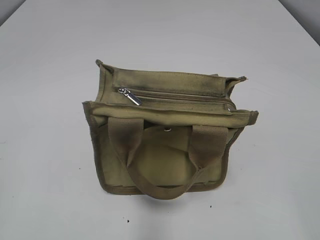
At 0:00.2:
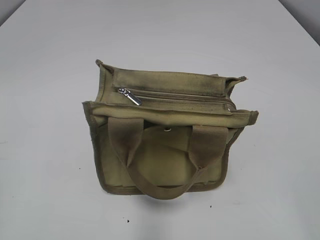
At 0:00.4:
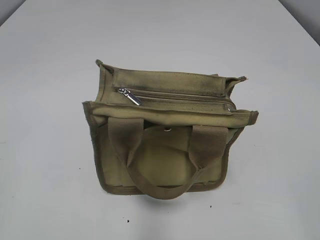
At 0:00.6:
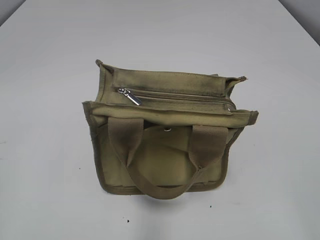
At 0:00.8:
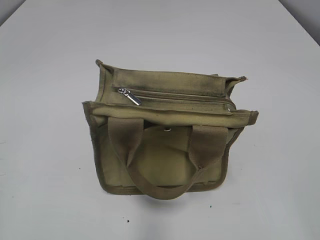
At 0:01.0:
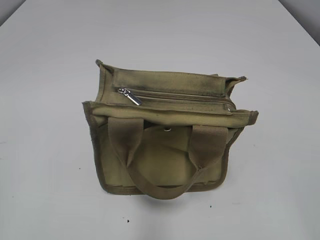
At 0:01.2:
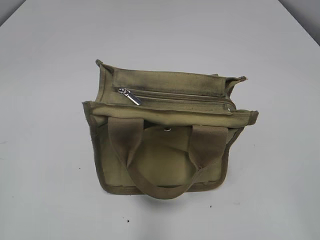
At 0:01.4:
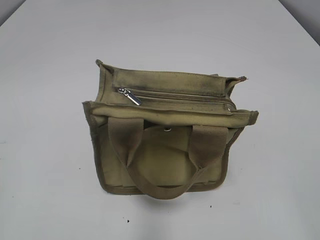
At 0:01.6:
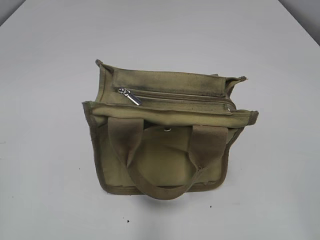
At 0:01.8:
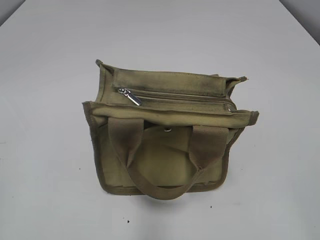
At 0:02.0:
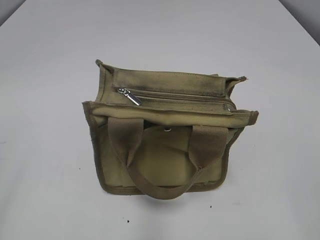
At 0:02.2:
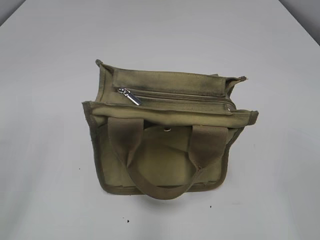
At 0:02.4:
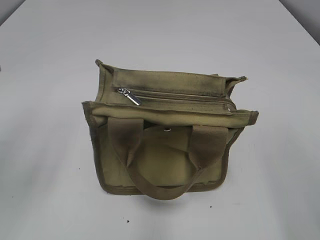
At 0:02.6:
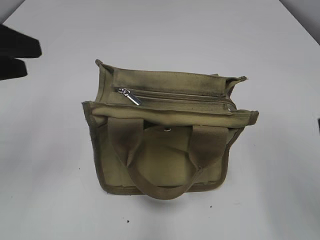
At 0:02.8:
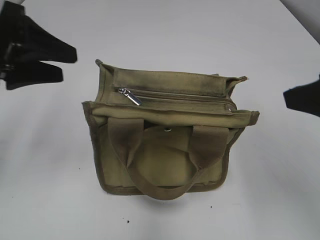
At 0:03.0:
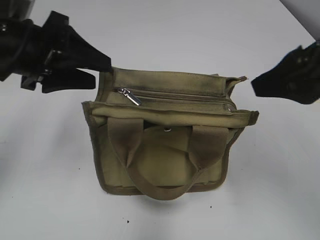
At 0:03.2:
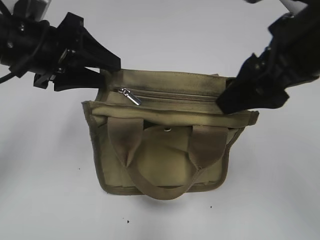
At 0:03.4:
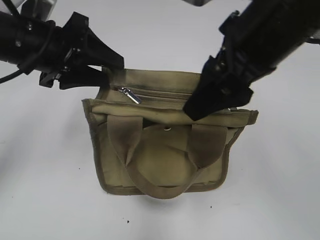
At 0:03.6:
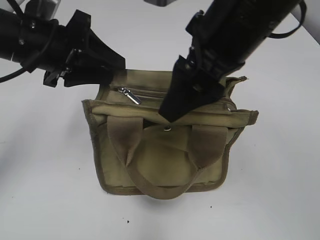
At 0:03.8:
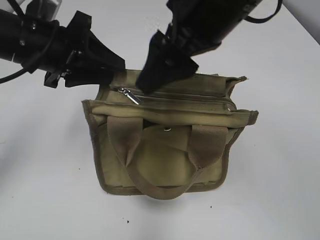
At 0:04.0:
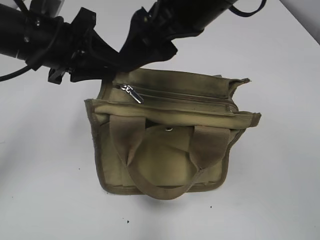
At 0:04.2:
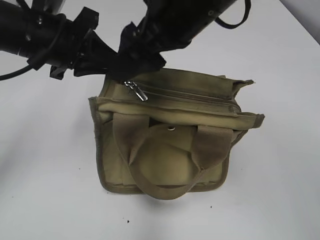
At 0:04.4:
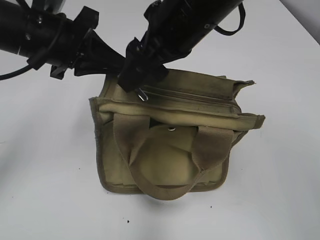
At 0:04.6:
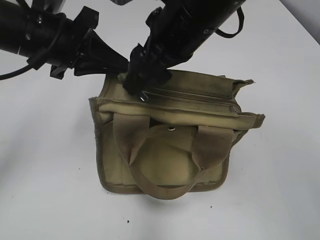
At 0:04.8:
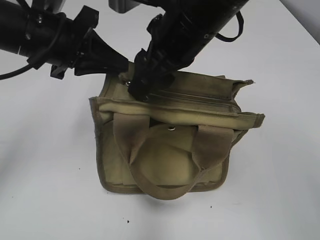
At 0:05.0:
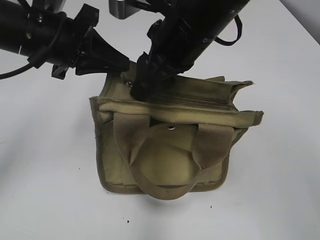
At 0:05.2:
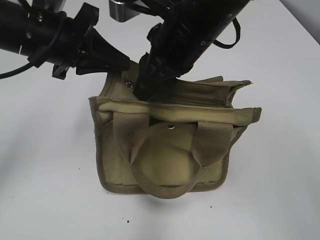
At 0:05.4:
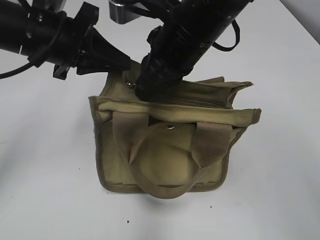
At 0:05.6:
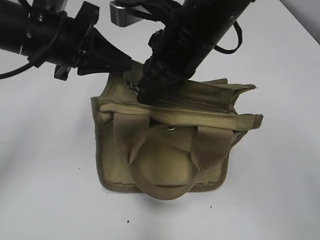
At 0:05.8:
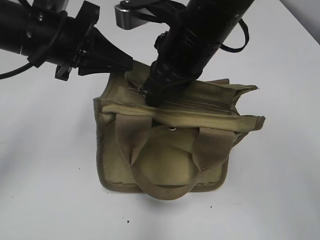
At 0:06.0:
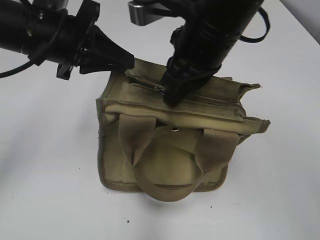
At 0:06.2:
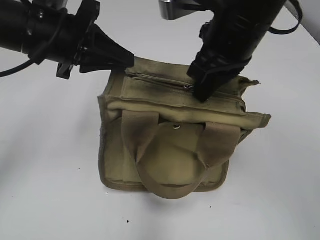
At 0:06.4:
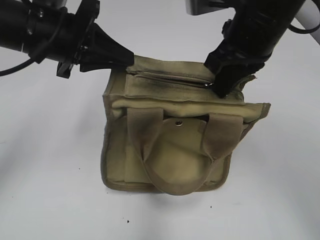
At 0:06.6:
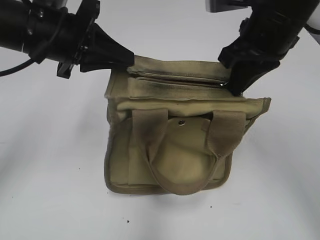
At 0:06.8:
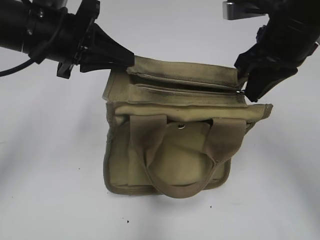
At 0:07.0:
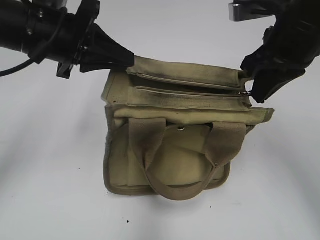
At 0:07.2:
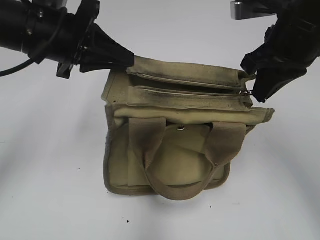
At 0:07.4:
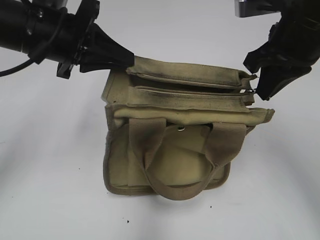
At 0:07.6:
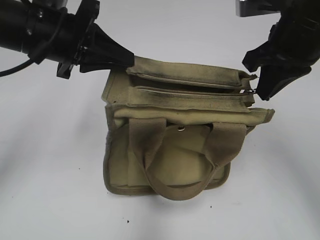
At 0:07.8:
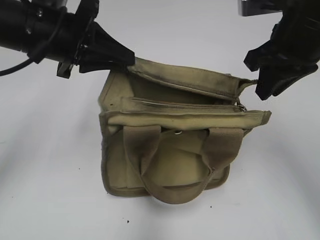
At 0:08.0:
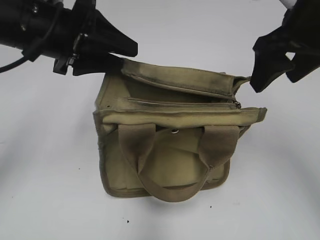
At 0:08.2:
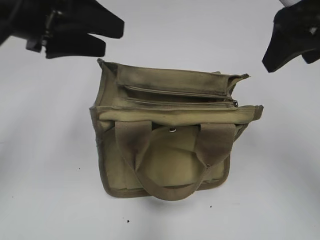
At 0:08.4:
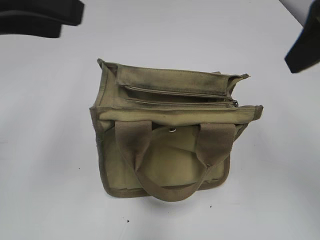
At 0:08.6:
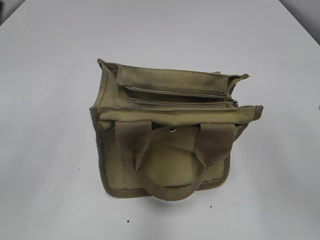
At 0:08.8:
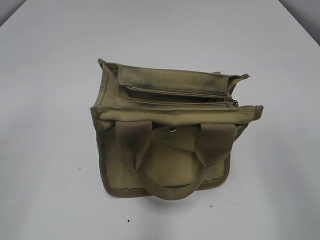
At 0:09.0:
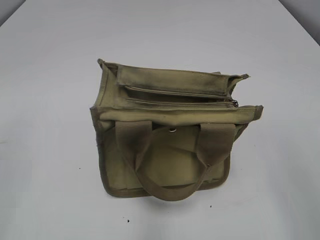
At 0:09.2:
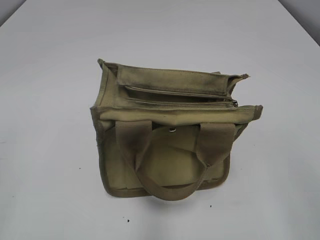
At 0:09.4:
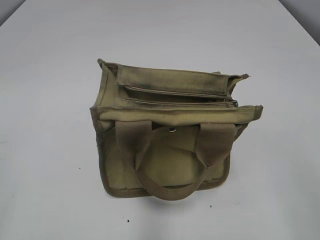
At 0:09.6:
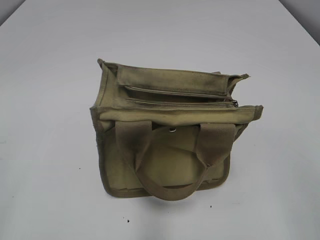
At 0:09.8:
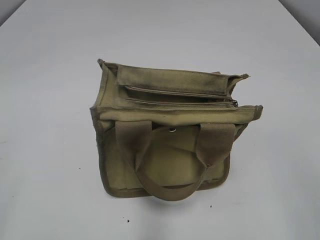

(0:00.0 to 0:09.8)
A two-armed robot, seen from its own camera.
Step, 0:00.0 - 0:07.6: Pull open the zipper with your right hand.
0:01.4 - 0:02.8: The grippers both shift forward by about 20 cm.
0:02.8 - 0:04.2: The left gripper goes approximately 5 cm to the right, and closes. The right gripper shifts approximately 20 cm to the left and forward.
0:04.2 - 0:05.6: The right gripper closes up.
0:05.6 - 0:07.0: The right gripper travels to the right by some 15 cm.
0:07.0 - 0:08.4: The left gripper goes roughly 15 cm upward and backward, and opens up; the right gripper moves backward and upward, about 15 cm, and opens its fingers.
0:08.4 - 0:09.8: The left gripper shifts some 25 cm backward, to the left and downward. Meanwhile the right gripper moves backward and downward, roughly 20 cm.

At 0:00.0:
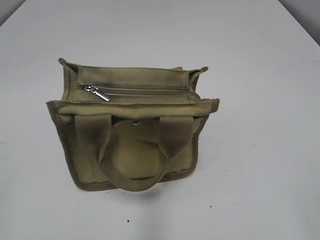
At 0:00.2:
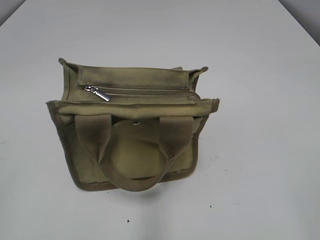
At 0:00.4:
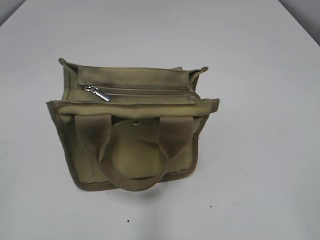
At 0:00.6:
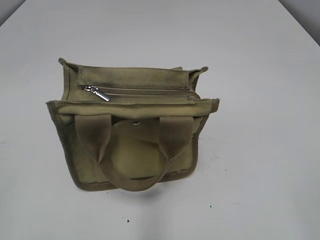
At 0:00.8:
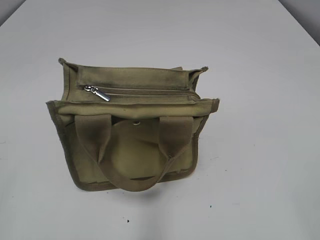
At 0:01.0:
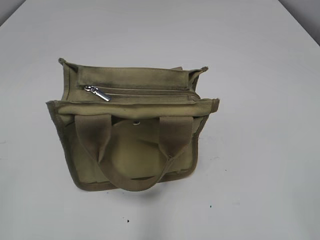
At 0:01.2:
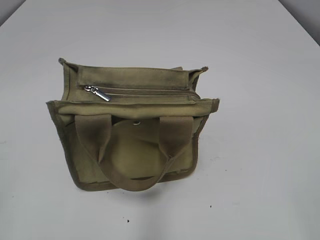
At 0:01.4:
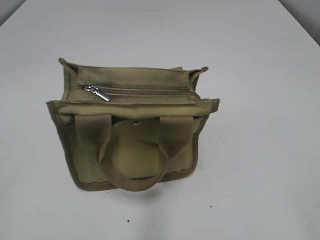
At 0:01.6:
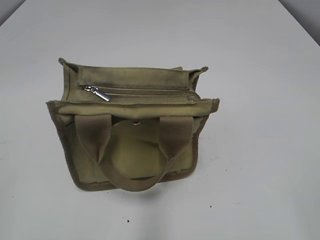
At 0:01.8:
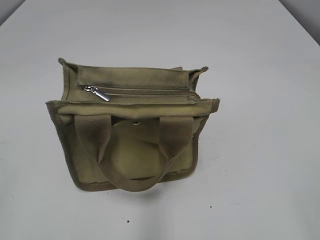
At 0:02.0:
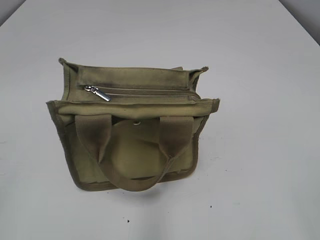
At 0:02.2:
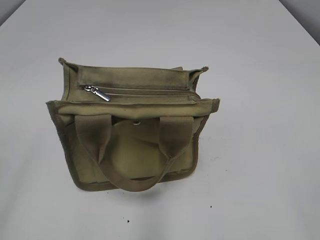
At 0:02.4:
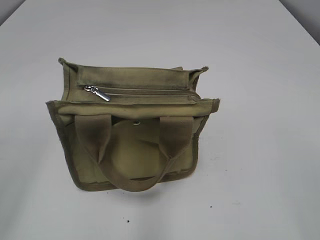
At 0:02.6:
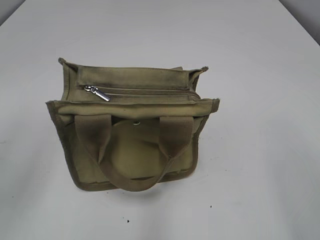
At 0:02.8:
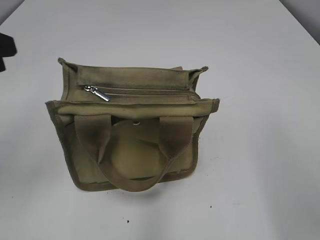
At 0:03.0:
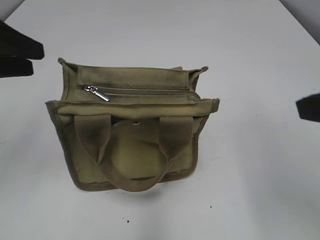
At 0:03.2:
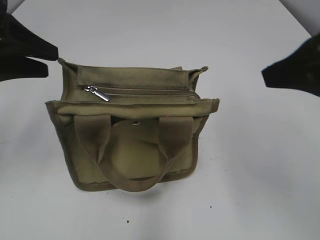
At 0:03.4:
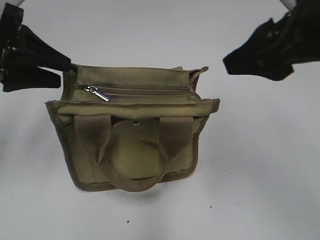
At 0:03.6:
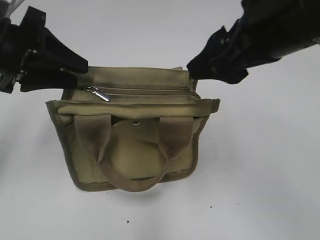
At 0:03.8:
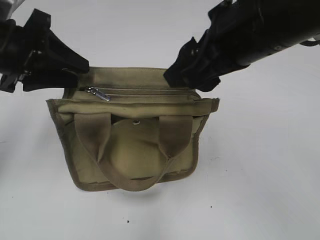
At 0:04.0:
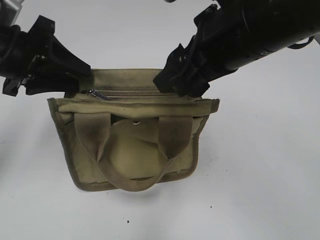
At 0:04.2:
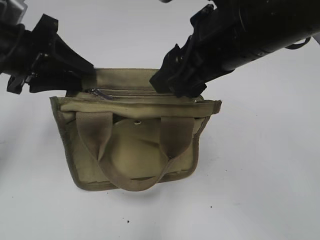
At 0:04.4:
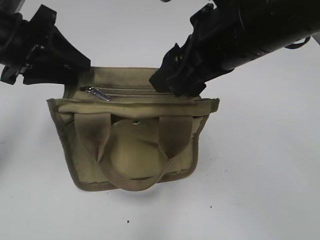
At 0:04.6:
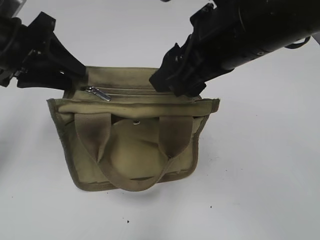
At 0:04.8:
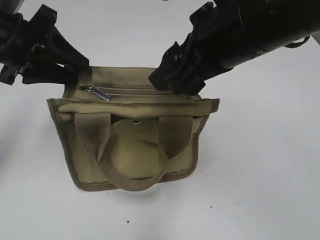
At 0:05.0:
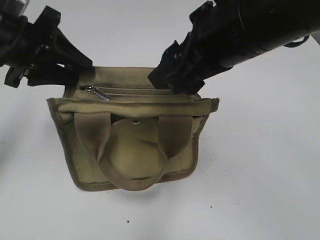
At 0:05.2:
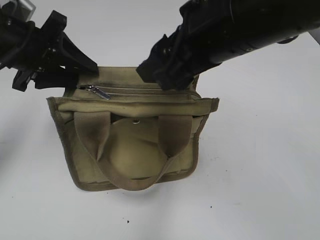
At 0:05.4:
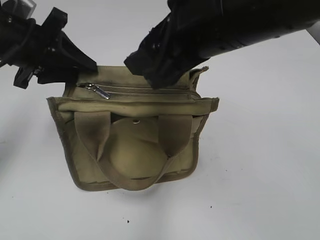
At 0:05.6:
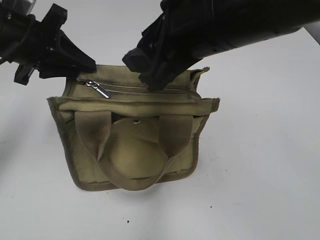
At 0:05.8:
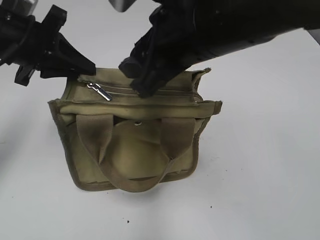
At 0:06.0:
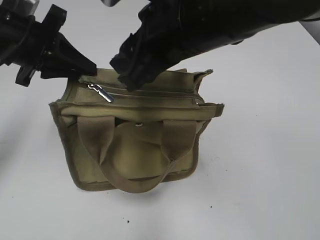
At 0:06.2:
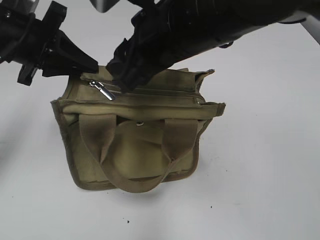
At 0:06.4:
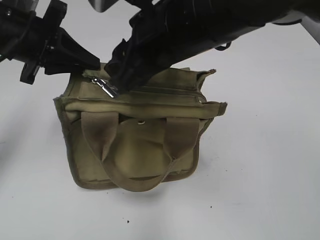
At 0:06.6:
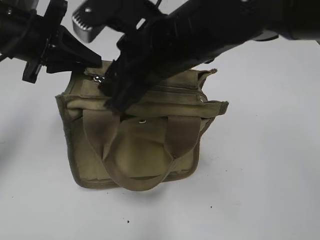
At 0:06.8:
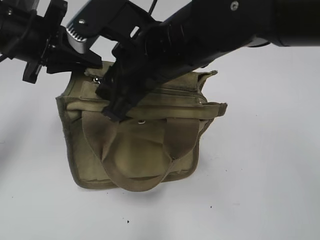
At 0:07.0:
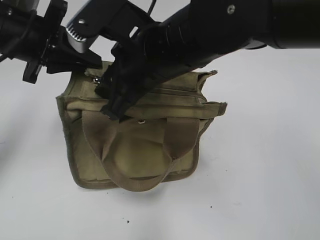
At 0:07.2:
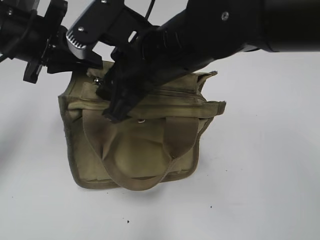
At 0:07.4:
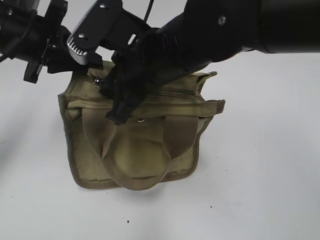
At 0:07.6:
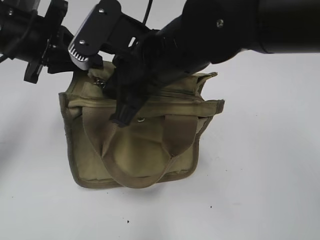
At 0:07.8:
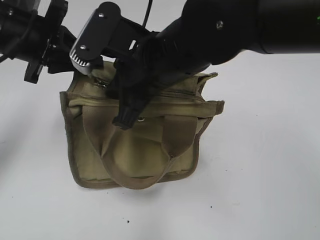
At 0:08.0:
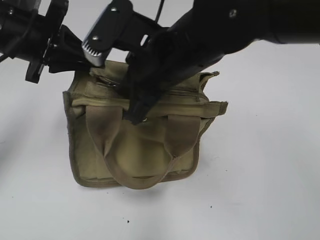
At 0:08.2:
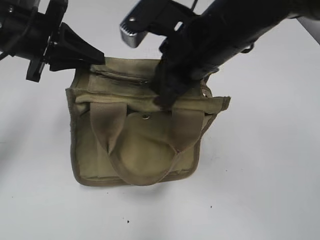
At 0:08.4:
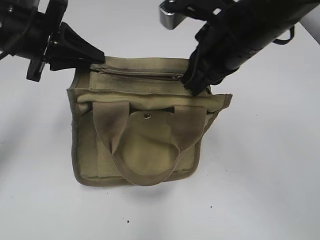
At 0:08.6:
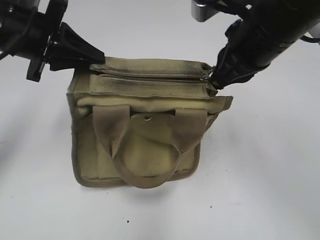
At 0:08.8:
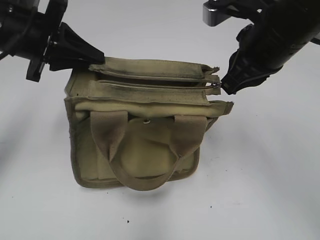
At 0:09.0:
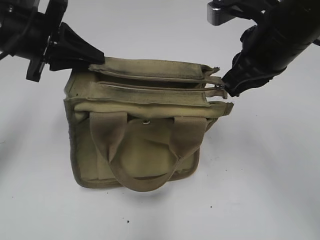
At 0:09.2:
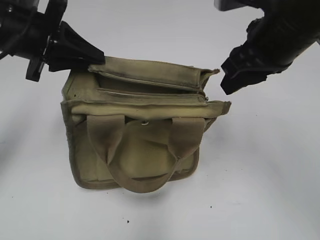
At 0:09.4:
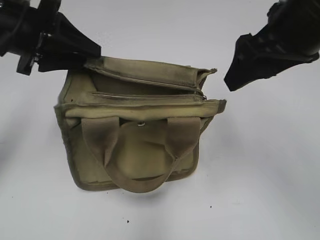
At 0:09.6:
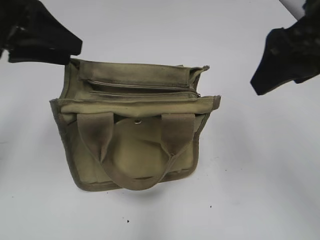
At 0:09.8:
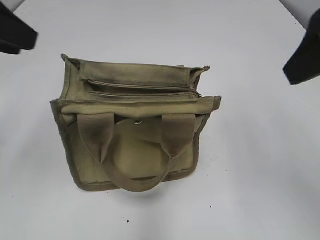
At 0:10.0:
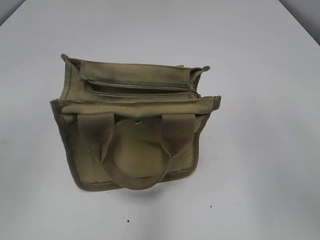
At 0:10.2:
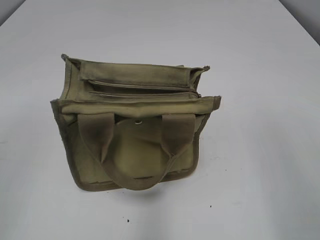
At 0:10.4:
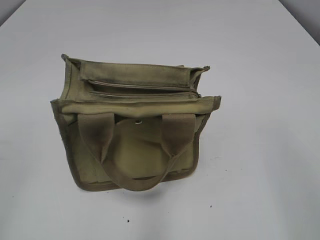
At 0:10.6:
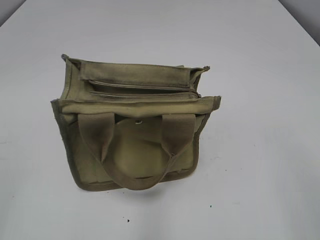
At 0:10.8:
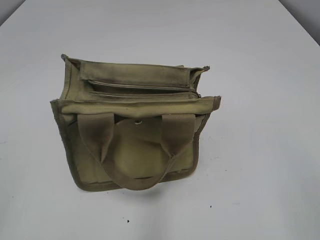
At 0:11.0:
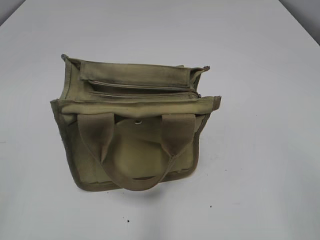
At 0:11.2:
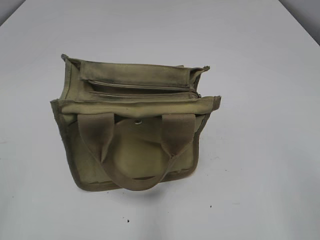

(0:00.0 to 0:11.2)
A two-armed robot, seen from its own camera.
Step, 0:00.0 - 0:09.0: Pull open the zipper with your right hand.
Step, 0:09.2 - 0:09.6: Hold the bag with your left hand.
0:01.6 - 0:03.2: The two grippers go roughly 25 cm forward.
0:03.2 - 0:04.8: The right gripper heads to the left and forward, covering roughly 15 cm; the left gripper changes place by approximately 5 cm.
0:04.8 - 0:06.4: The left gripper closes its fingers, while the right gripper shifts roughly 5 cm to the left.
0:06.4 - 0:08.0: The right gripper closes up.
0:08.0 - 0:09.6: The left gripper changes place by approximately 5 cm, and opens. Meanwhile the right gripper heads to the right and upward, covering some 20 cm, and opens.
0:09.6 - 0:11.2: The right gripper shifts roughly 25 cm backward and to the right. The left gripper moves backward, about 25 cm.

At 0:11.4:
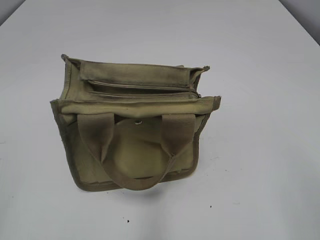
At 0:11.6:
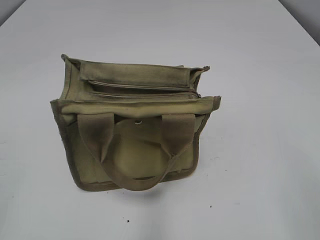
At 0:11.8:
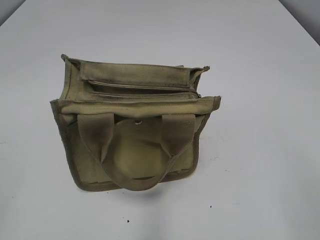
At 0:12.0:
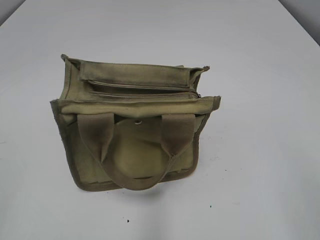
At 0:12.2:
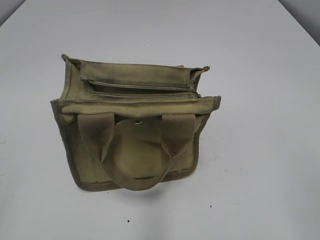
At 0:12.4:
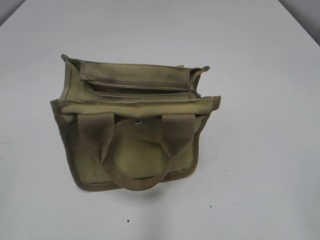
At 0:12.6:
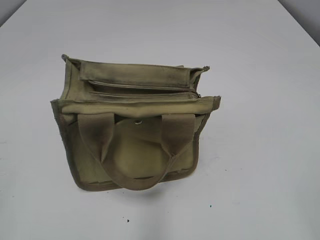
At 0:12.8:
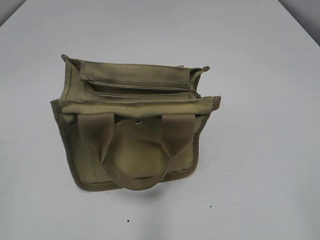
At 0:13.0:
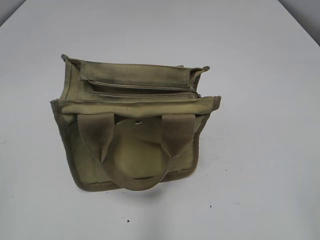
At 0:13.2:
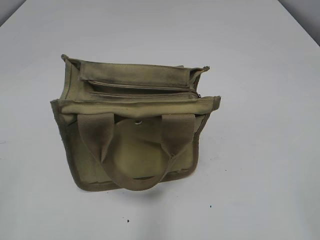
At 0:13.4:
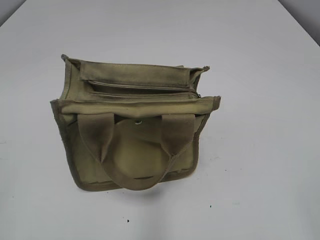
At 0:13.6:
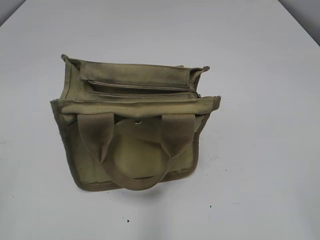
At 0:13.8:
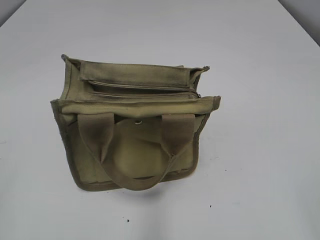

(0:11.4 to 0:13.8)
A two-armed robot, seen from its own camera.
0:12.6 - 0:13.8: Both grippers stay about where they are.
